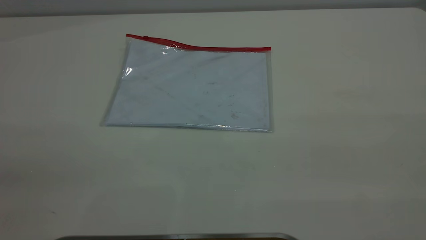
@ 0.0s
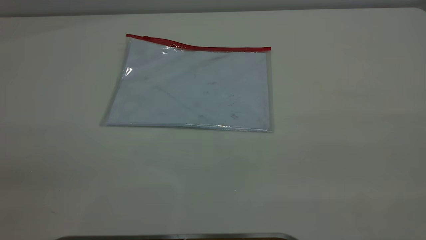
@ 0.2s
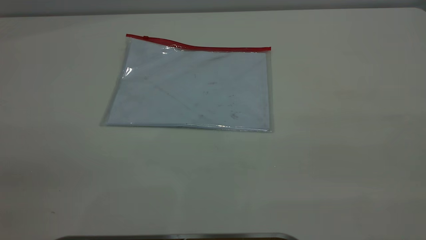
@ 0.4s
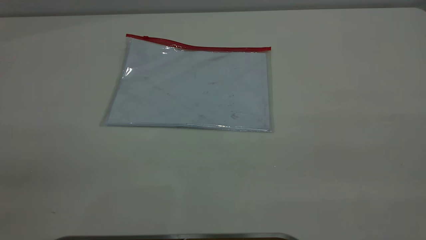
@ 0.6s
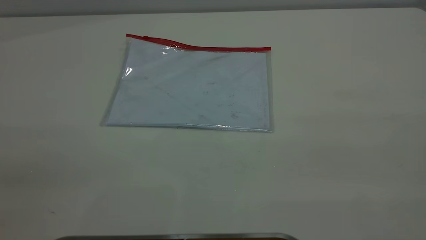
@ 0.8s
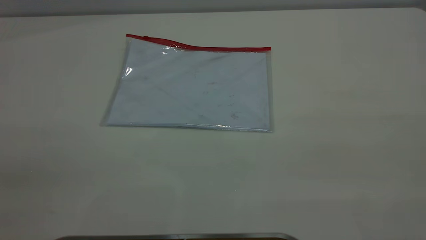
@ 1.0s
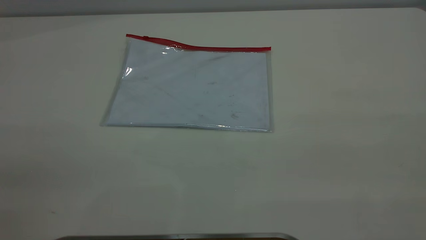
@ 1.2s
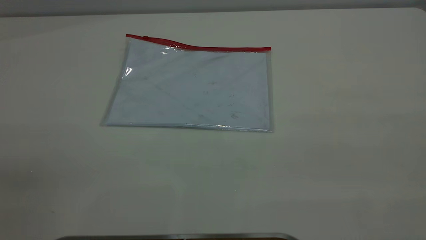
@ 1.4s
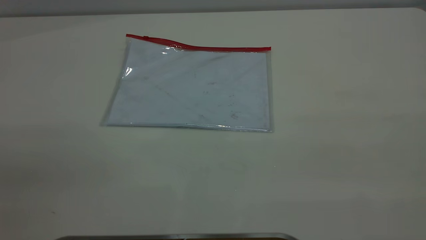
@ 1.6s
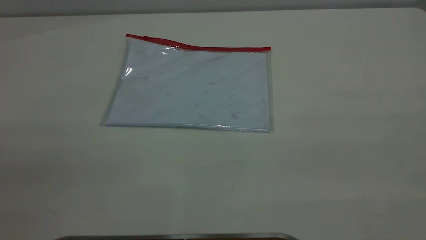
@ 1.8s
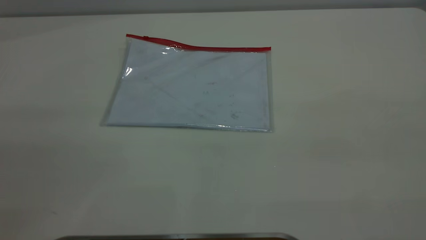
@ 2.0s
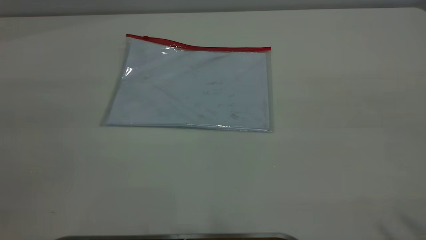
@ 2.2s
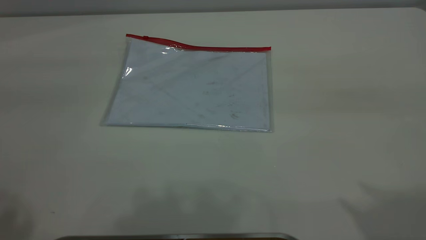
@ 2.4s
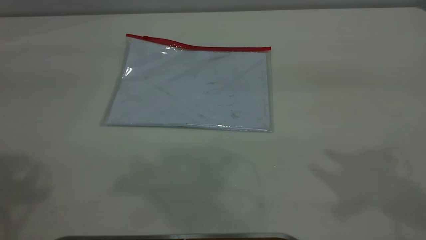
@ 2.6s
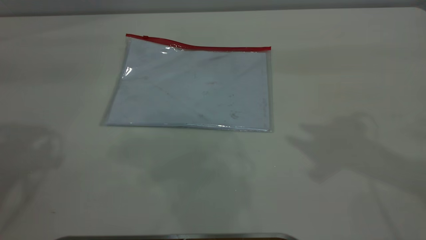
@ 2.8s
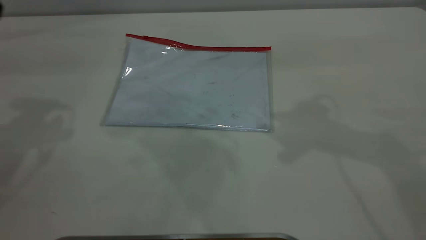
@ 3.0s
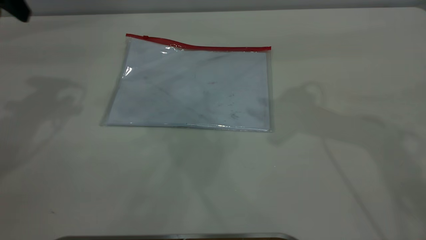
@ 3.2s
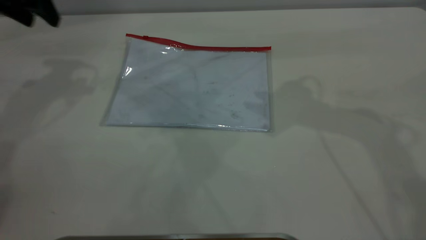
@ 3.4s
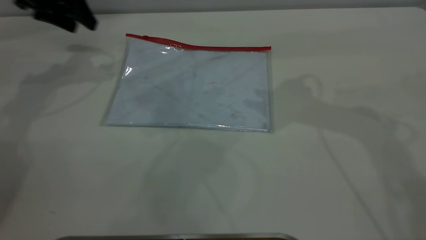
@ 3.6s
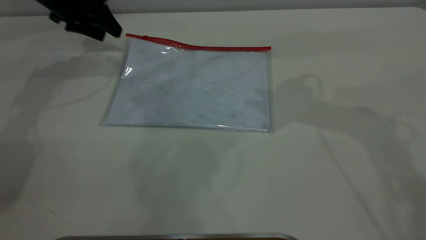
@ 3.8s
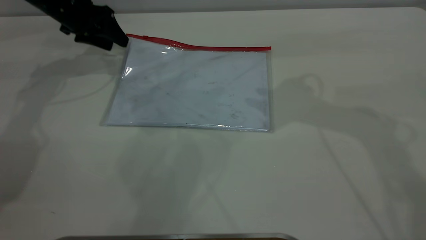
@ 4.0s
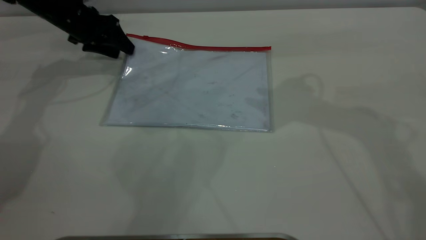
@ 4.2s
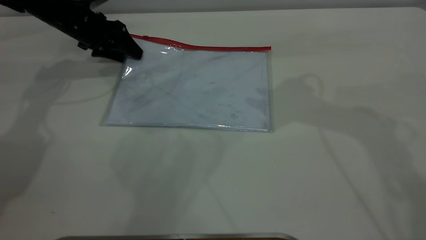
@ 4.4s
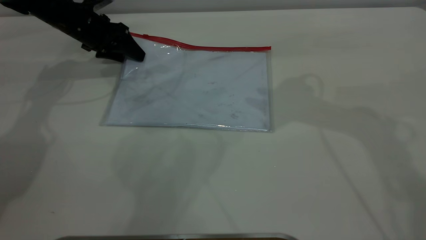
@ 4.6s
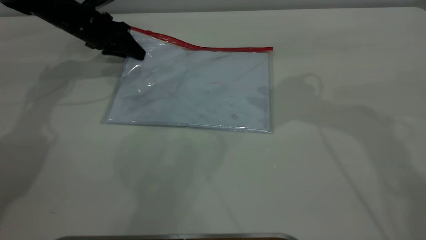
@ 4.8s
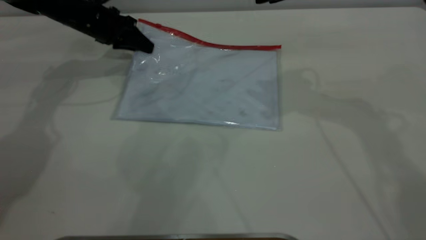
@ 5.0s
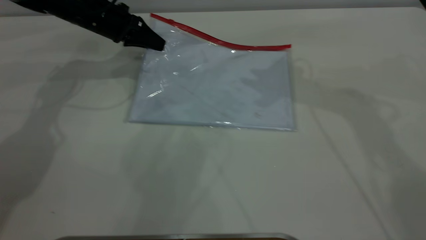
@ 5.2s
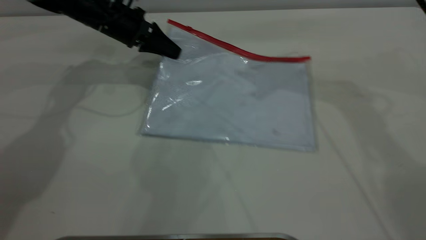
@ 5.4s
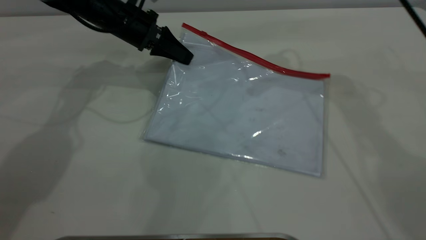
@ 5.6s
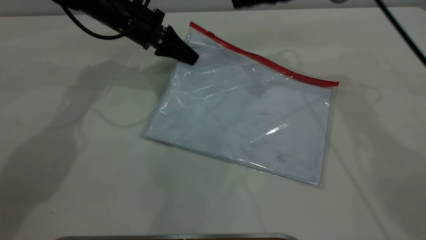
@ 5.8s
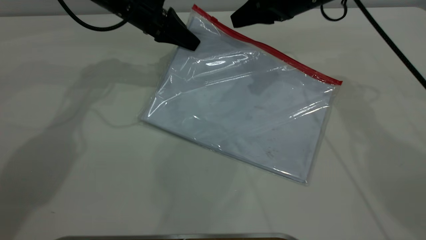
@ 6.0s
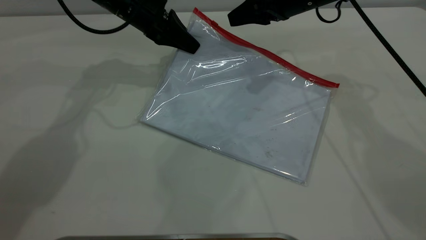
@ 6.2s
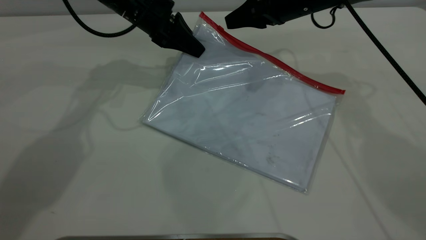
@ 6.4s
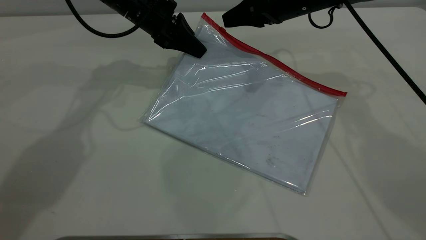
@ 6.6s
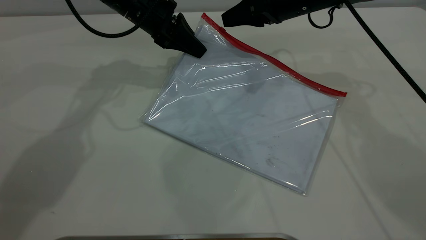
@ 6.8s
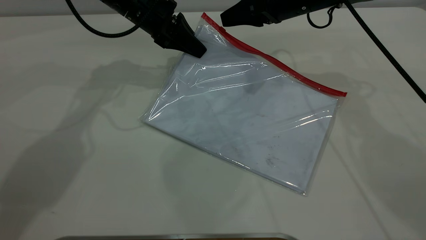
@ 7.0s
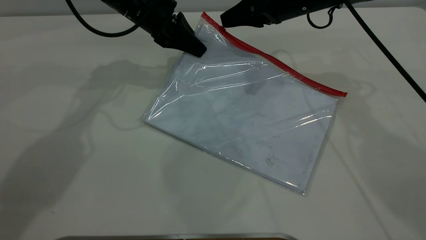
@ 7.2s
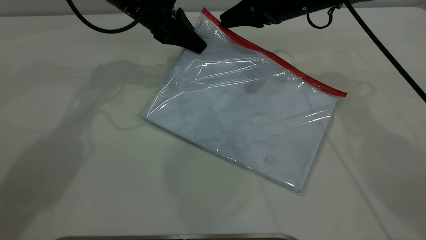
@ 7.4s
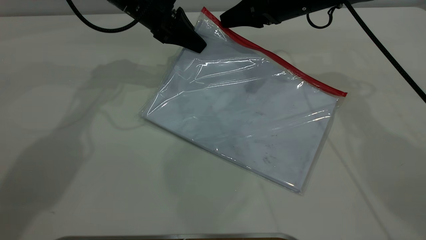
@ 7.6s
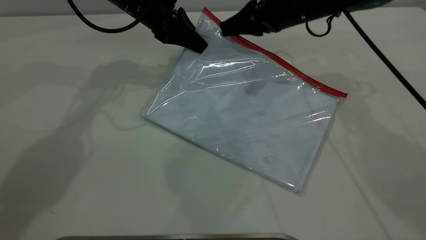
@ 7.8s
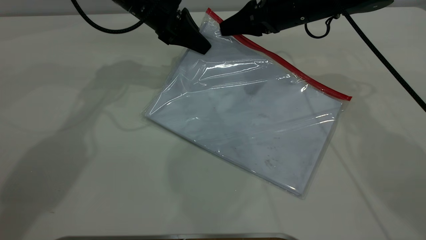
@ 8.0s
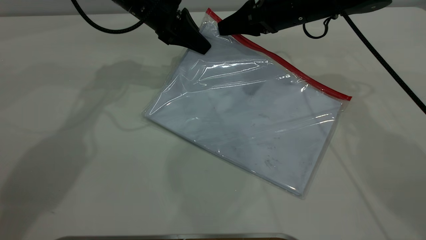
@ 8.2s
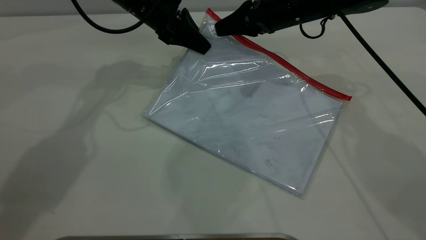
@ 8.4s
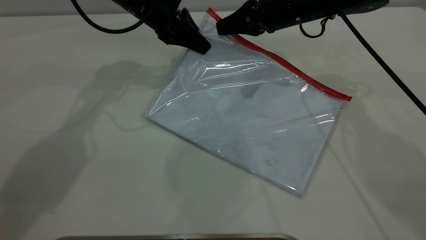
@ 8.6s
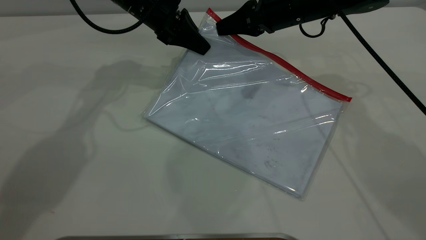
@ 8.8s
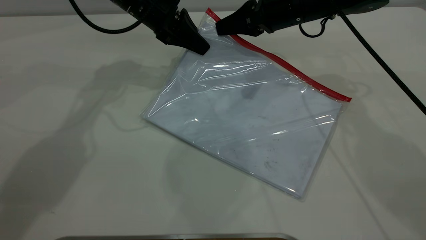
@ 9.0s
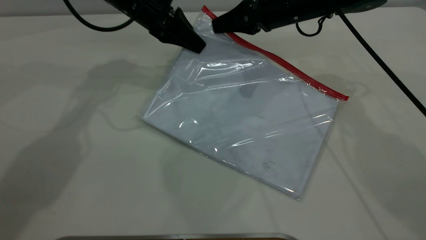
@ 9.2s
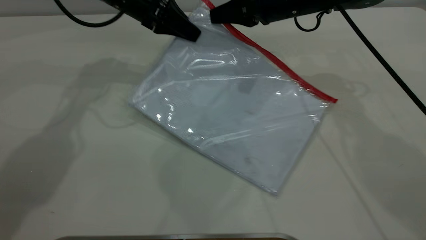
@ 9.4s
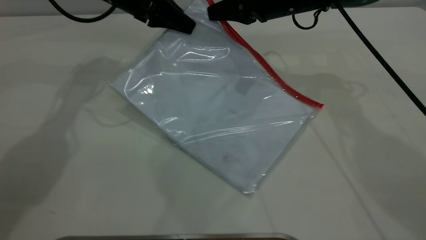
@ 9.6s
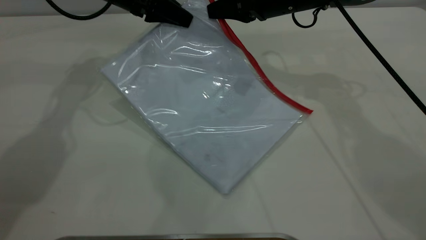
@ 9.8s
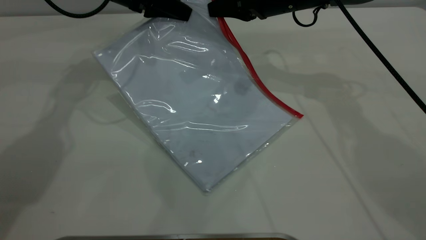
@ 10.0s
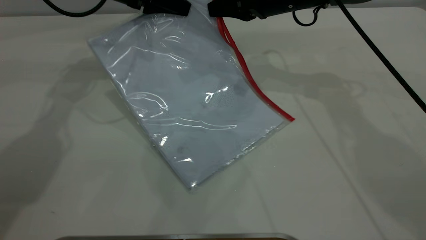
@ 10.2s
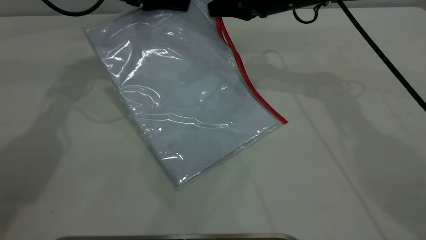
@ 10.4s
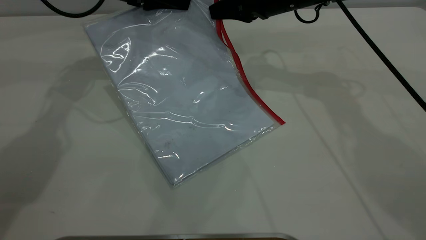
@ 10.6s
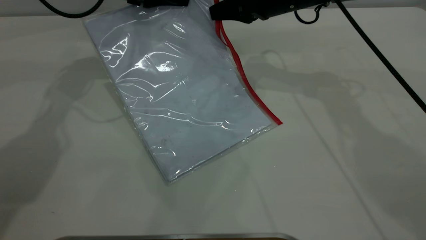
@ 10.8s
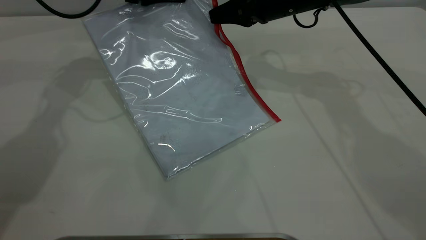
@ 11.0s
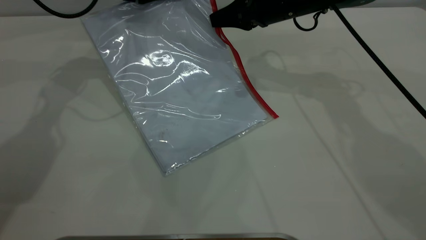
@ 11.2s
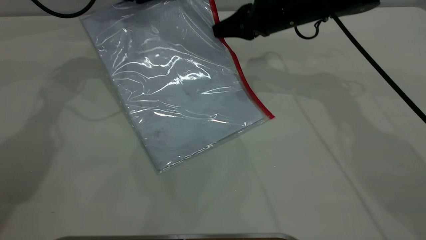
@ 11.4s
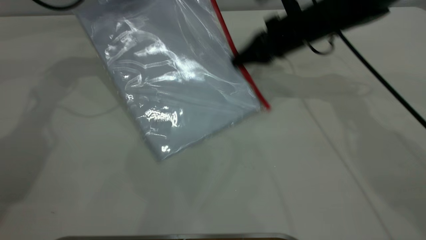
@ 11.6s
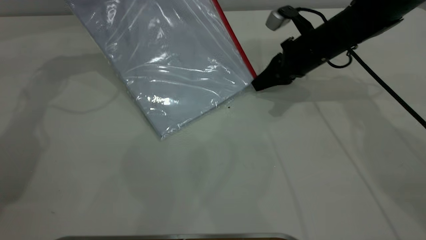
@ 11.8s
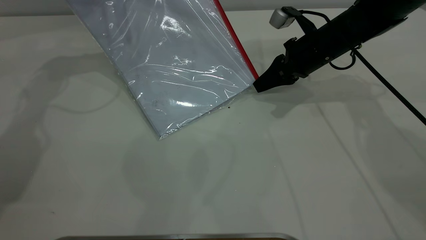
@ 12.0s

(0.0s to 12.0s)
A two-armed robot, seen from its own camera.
Step, 0.0s - 5.0s: Pick up the transparent plastic bag with the left gripper.
0.0s - 1.6s: Both grippers stay put.
3.0s - 4.4s: The left gripper shifts about 30 cm downward and forward.
4.4s - 6.0s: The right gripper goes about 15 cm downward and forward; the left gripper is displaced to the right by roughly 10 cm, and closes up.
6.0s - 7.6s: The grippers move only a little.
7.6s - 9.0s: The right gripper closes up.
9.0s - 10.4s: The left gripper travels to the left by roughly 5 cm.
10.4s - 12.0s: The left gripper heads to the left, covering some 5 cm; the right gripper moves downward and to the right, some 10 cm.

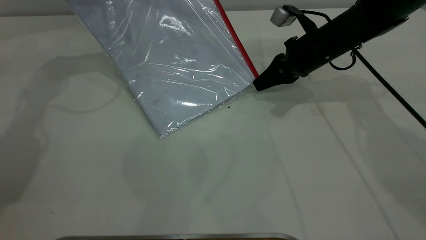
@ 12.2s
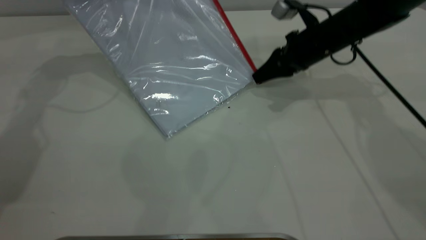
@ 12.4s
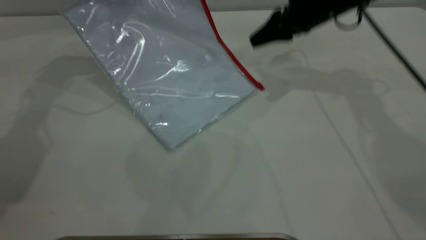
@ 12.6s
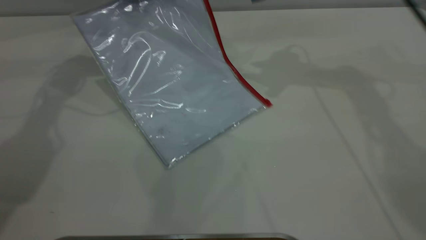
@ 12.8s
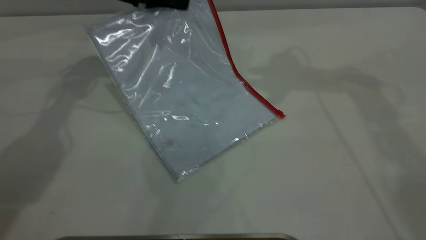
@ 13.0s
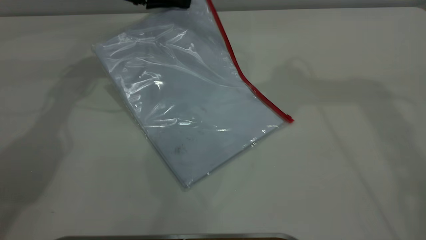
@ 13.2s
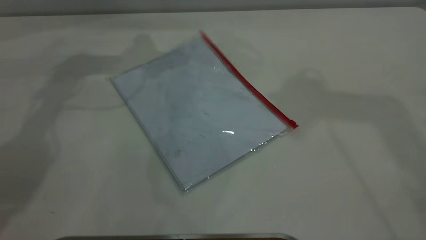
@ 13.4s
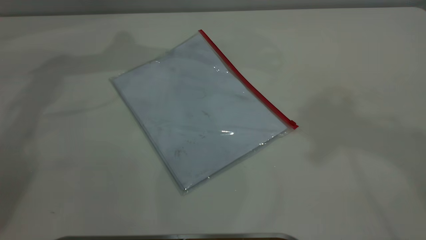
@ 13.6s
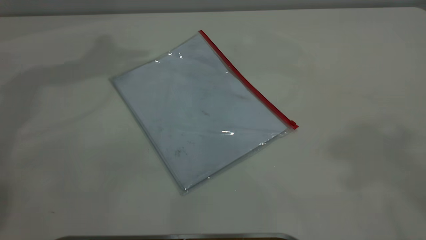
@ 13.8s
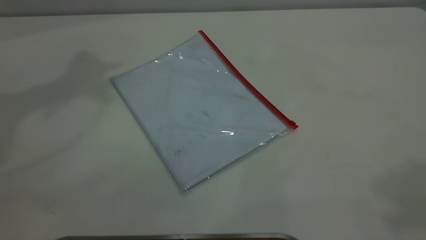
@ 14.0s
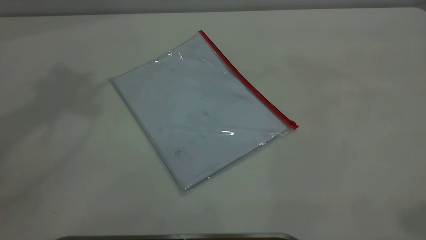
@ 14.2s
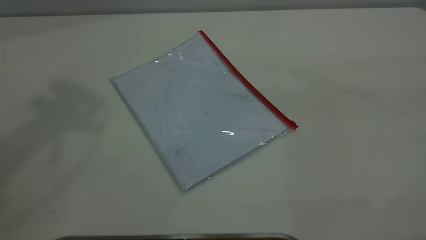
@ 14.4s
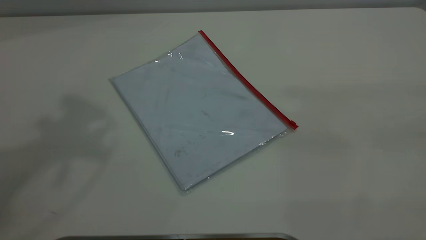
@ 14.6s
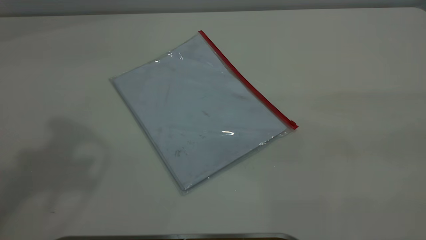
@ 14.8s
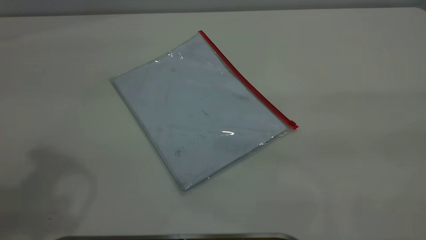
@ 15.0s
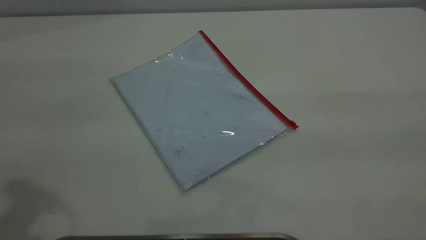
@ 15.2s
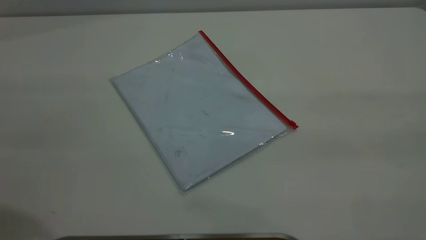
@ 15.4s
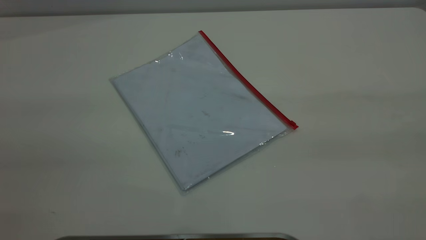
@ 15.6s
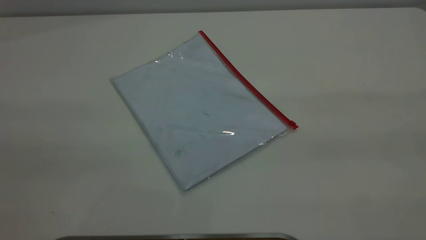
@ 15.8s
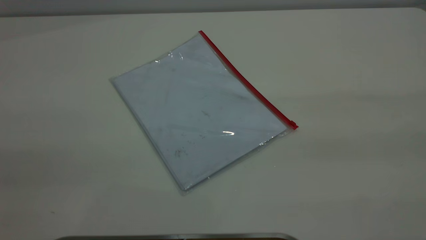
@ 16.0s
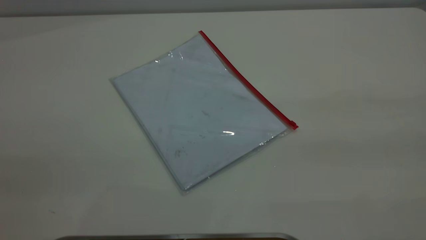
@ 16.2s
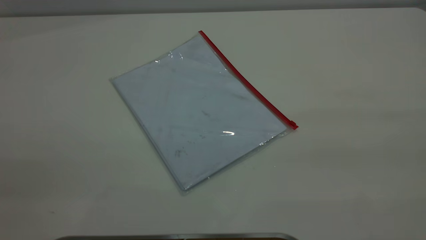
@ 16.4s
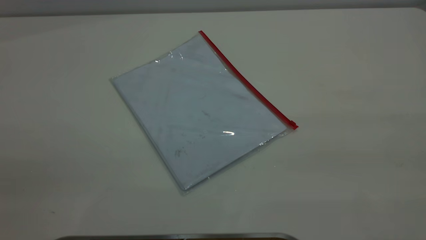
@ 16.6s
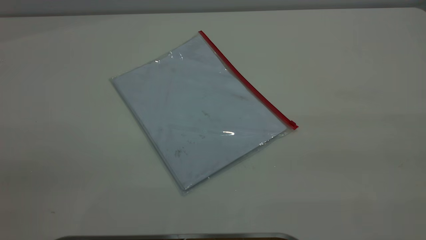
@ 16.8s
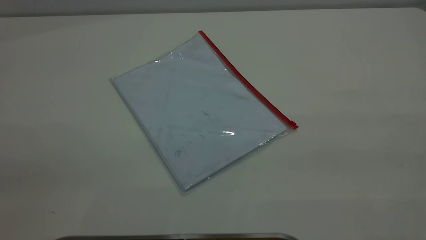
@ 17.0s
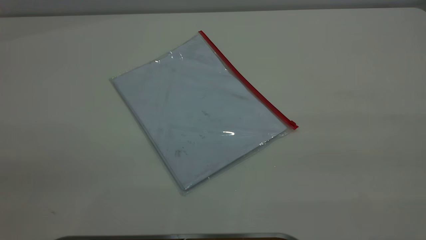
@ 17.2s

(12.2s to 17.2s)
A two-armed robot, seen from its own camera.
Step, 12.6s - 13.4s: Place the transparent plastic bag.
12.2s - 13.8s: The left gripper heads upward, covering approximately 25 cm, and opens up, while the right gripper shifts roughly 50 cm upward and backward, and opens up.
